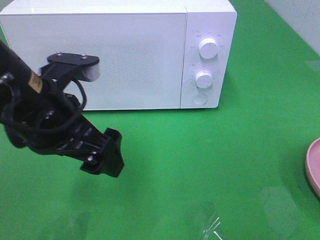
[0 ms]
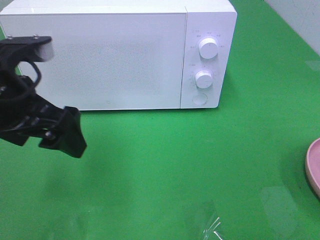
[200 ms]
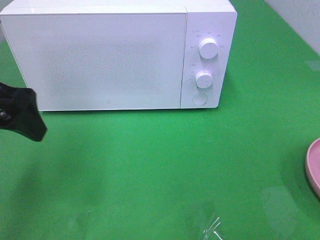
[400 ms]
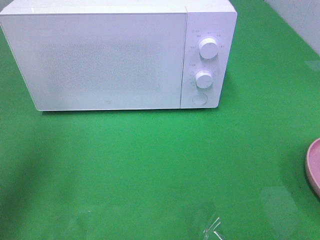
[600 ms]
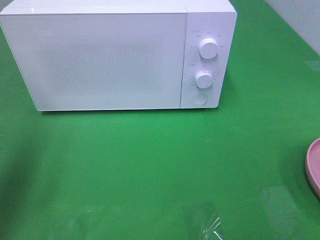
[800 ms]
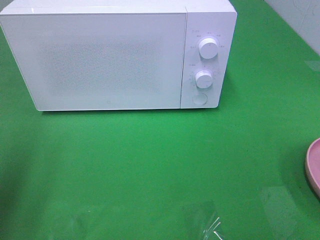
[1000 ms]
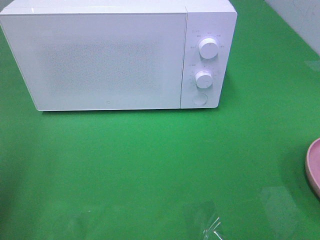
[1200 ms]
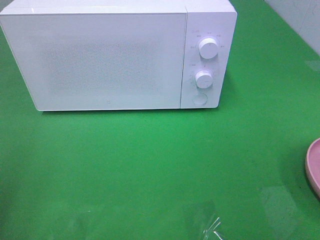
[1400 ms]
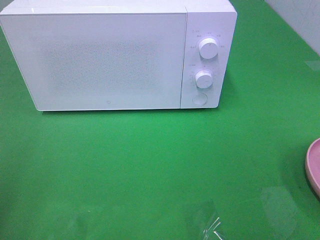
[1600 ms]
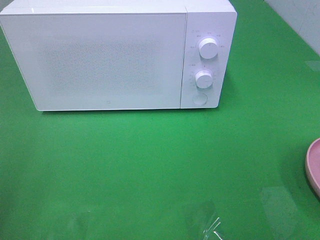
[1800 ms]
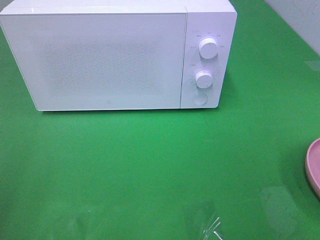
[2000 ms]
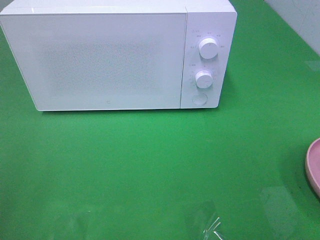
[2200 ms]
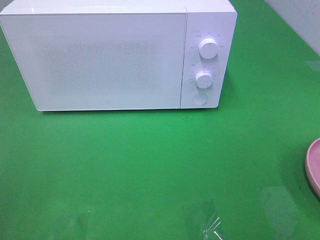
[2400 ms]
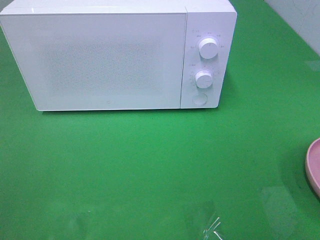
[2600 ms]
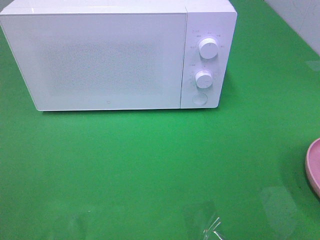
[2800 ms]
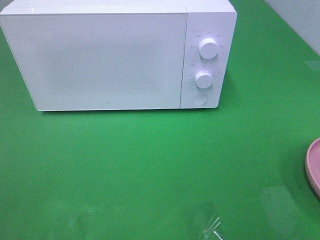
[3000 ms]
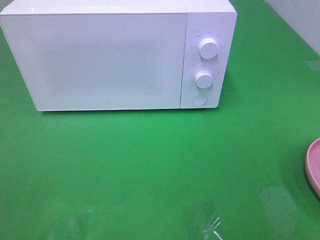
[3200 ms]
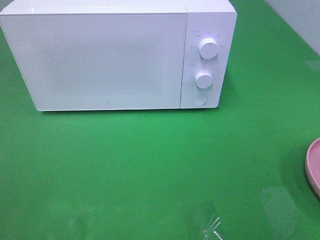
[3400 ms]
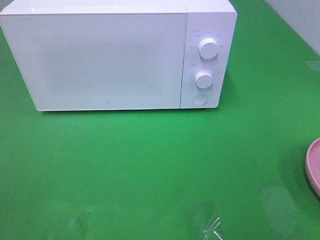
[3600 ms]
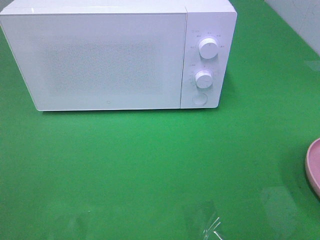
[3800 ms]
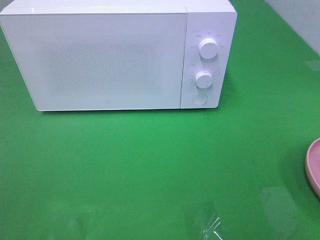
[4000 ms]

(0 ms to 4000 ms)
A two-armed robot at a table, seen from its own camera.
Task of the whole recording: Heat the burger.
0 ms - 1400 ms: The left gripper moves to the left and backward, about 20 cm.

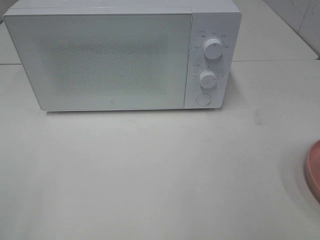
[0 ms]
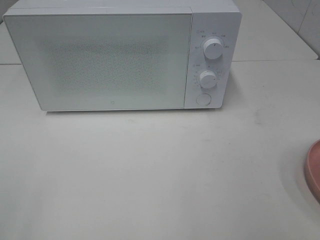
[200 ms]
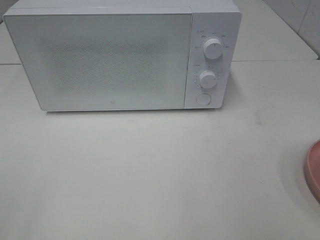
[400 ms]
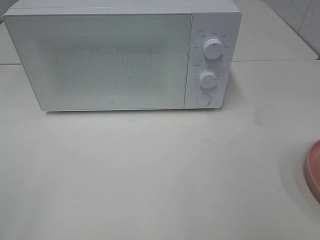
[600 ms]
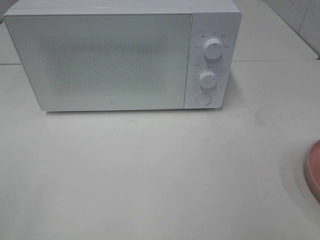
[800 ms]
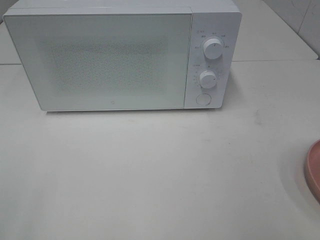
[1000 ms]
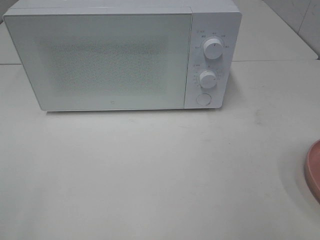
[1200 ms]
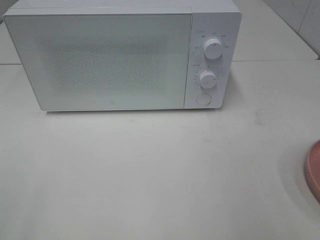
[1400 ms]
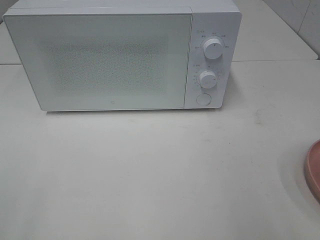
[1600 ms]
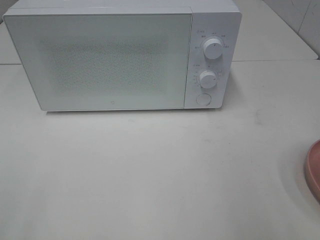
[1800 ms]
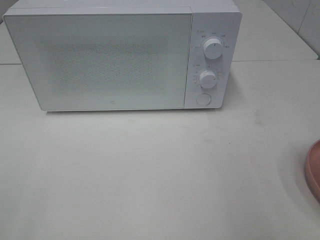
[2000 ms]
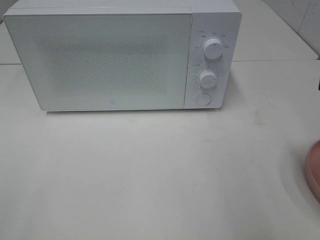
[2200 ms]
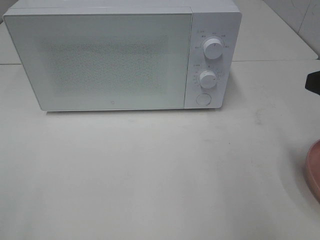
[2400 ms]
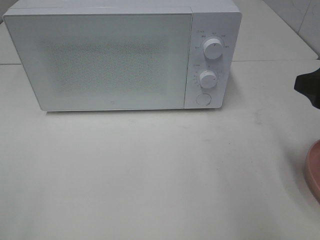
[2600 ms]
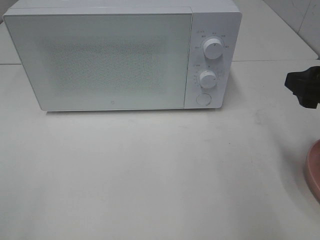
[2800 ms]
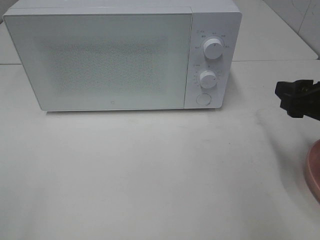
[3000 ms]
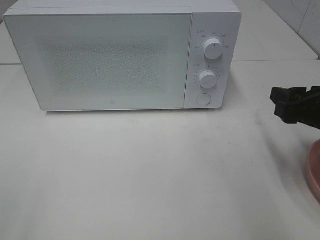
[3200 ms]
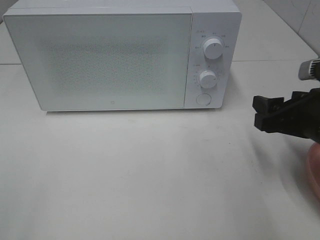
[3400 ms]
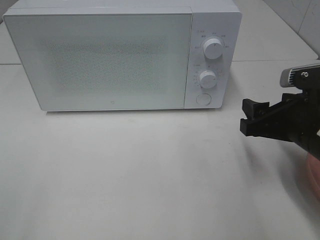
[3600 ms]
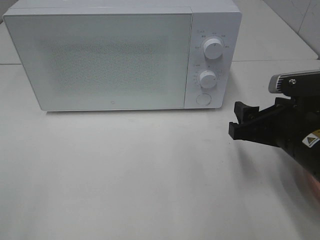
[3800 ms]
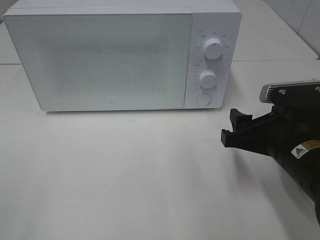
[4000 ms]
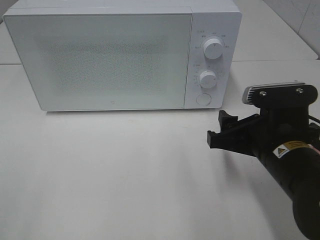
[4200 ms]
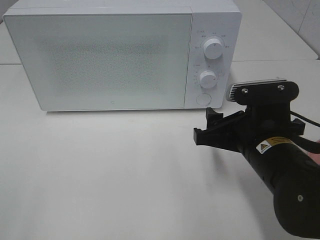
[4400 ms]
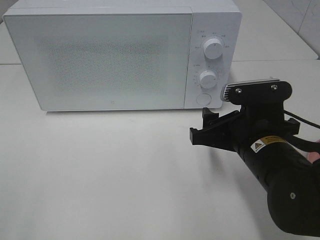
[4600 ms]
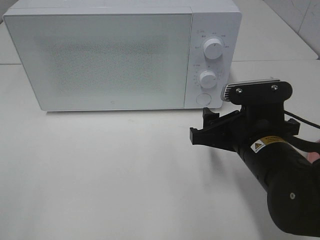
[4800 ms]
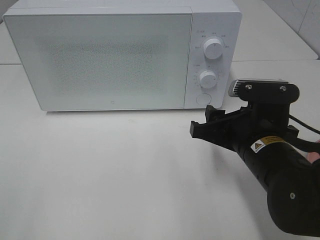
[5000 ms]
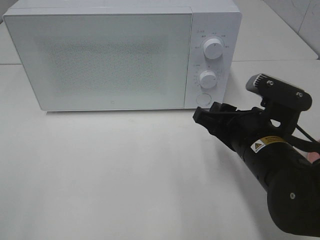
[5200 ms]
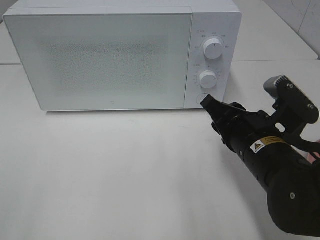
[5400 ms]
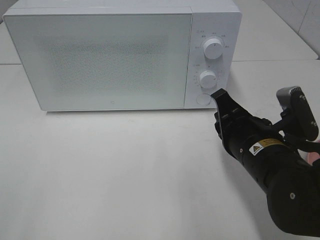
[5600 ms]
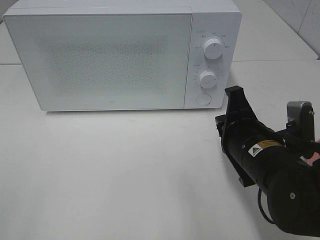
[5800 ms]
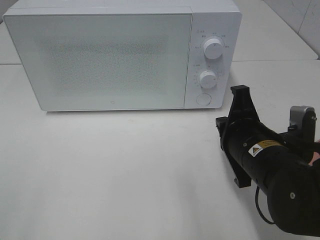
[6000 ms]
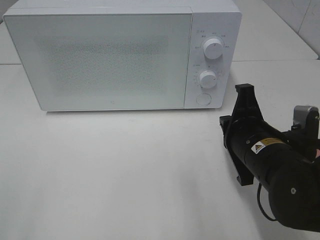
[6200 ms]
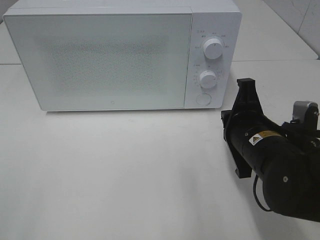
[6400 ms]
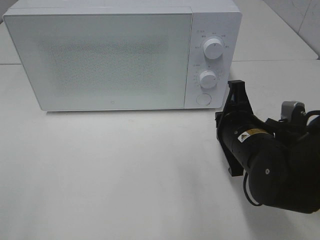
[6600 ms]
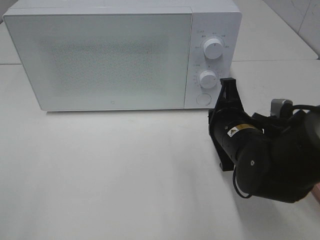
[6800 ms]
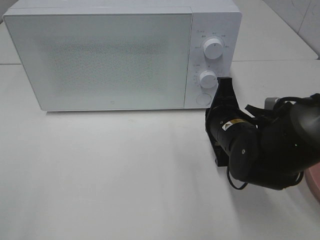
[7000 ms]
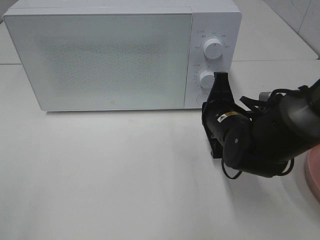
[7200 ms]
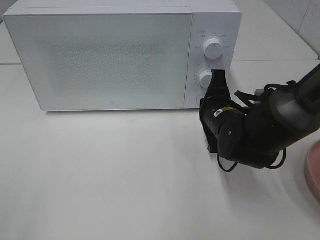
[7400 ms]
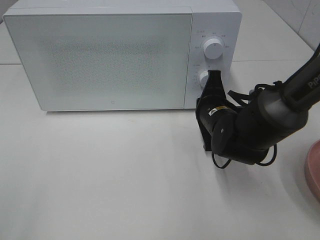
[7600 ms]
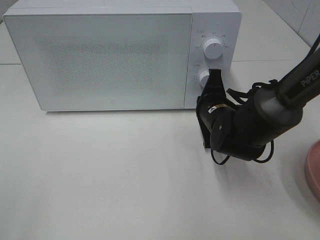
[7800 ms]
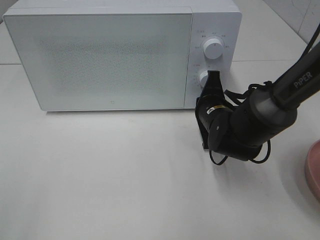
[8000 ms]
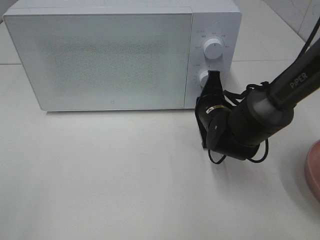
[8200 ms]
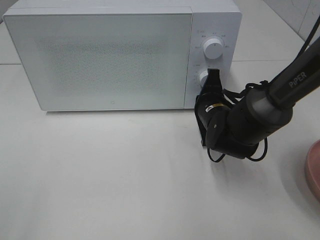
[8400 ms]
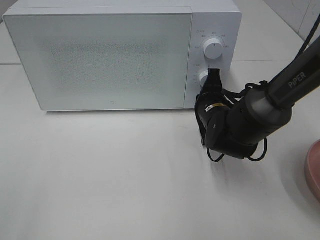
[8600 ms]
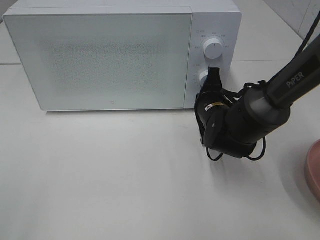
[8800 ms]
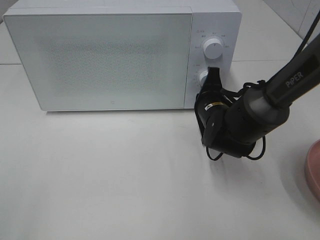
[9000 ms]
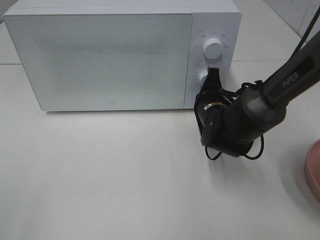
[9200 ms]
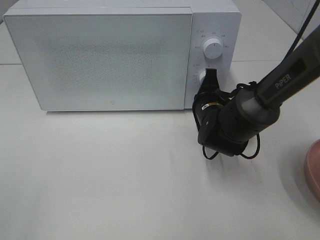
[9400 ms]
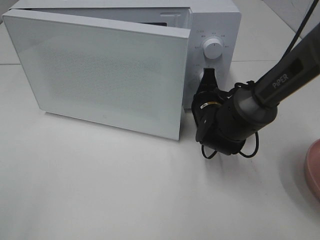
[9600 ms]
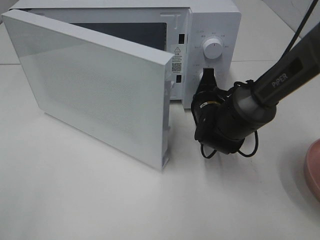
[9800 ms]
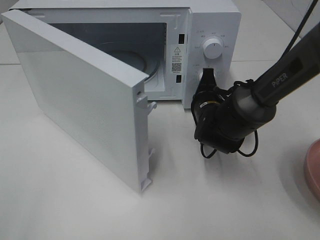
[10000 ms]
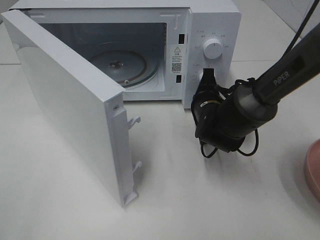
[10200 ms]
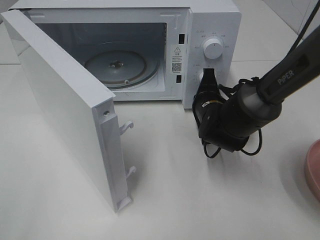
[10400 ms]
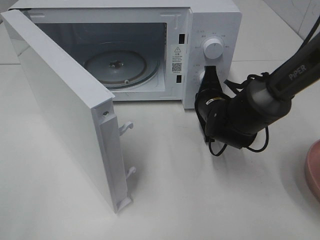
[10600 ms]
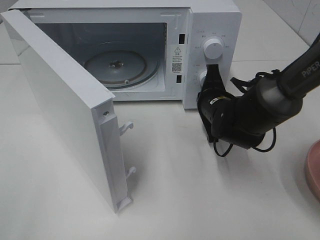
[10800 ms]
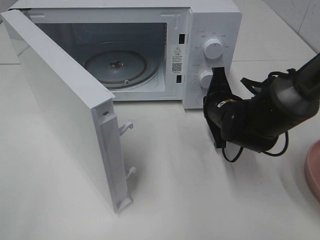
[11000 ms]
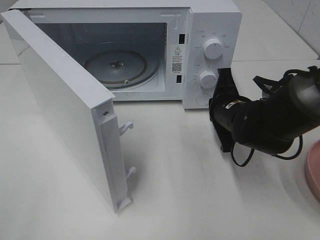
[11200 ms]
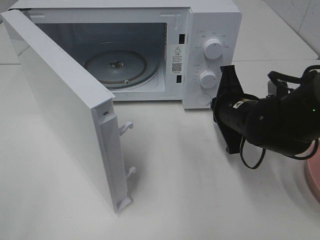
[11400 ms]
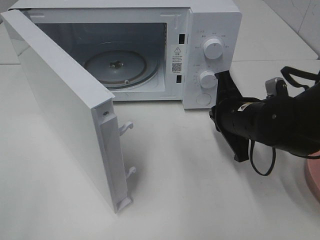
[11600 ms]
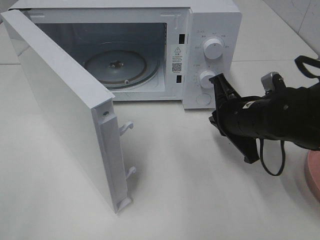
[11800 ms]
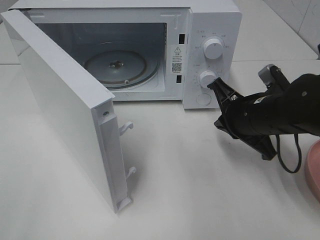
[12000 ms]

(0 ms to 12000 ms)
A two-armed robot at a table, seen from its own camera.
Task of the whole recording: Heat the burger.
Step, 0 ms - 11000 ms: Right hand: press the switch.
1600 ms - 3000 ms: The right gripper shifts about 15 cm forward and downward.
3000 ms - 4400 ms: The right gripper heads to the left and downward, covering about 15 cm.
4400 ms - 6000 ms: The right gripper closes its fingers.
6000 ms - 7600 ms: The right gripper is displaced forward by roughly 10 cm.
7600 ms - 9000 ms: The grippers stay close to where they were, moving slightly.
10400 ms - 12000 ms: The right gripper goes some 10 cm backward and upward.

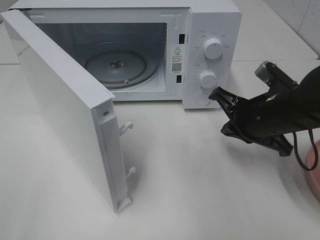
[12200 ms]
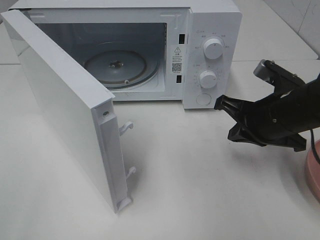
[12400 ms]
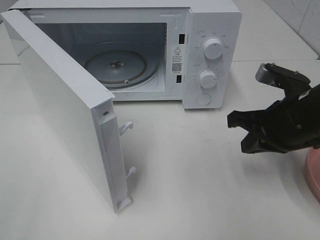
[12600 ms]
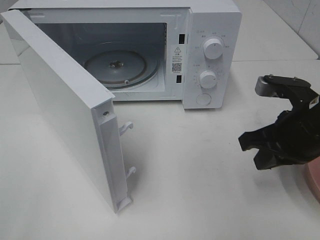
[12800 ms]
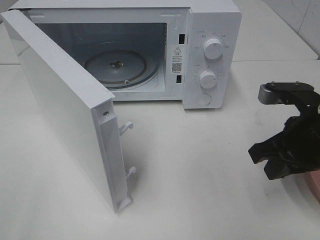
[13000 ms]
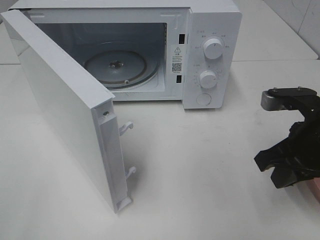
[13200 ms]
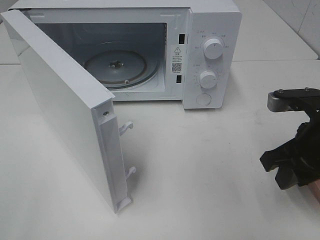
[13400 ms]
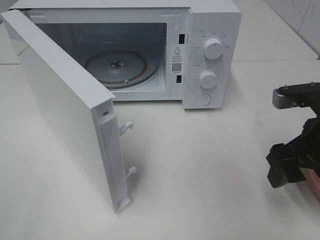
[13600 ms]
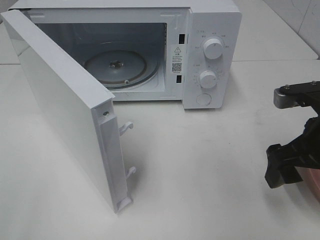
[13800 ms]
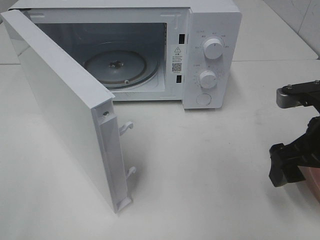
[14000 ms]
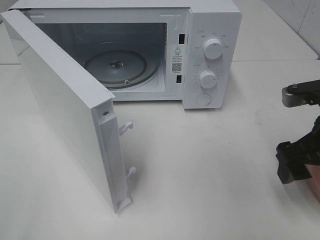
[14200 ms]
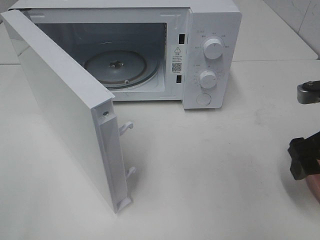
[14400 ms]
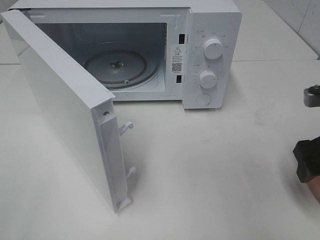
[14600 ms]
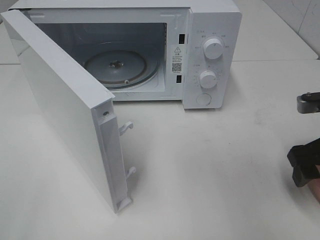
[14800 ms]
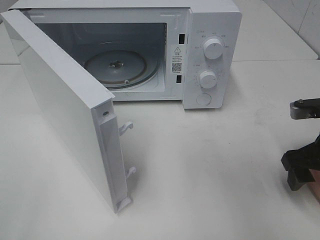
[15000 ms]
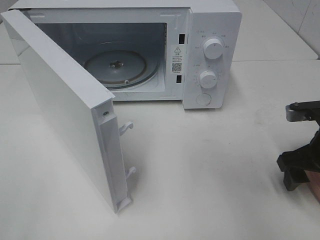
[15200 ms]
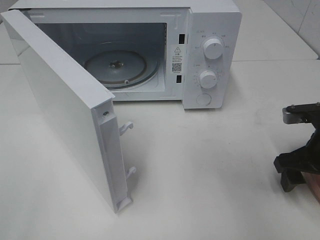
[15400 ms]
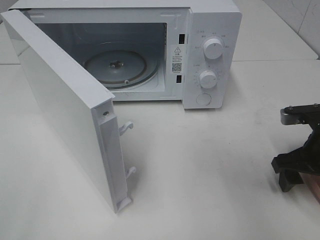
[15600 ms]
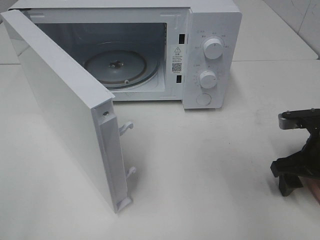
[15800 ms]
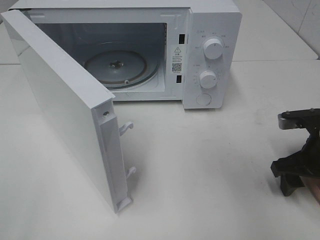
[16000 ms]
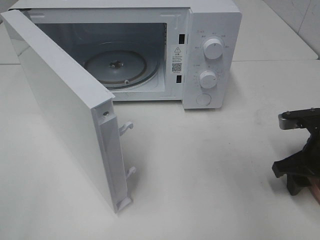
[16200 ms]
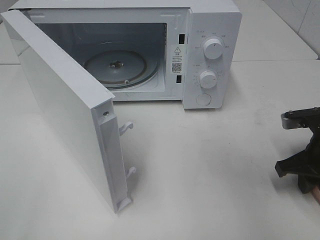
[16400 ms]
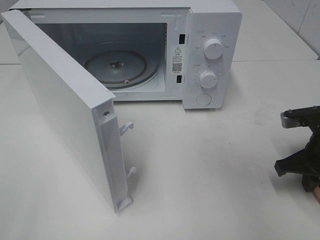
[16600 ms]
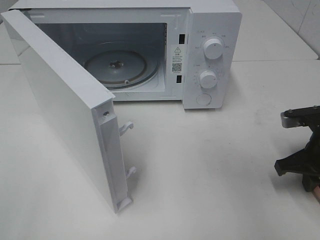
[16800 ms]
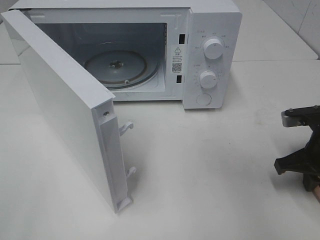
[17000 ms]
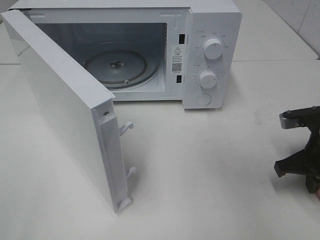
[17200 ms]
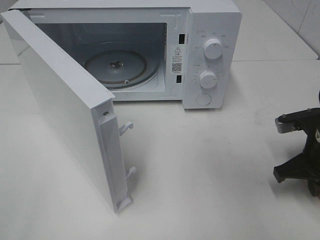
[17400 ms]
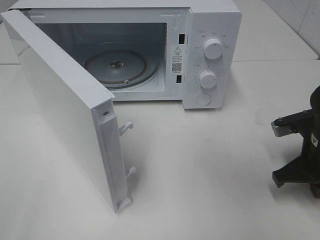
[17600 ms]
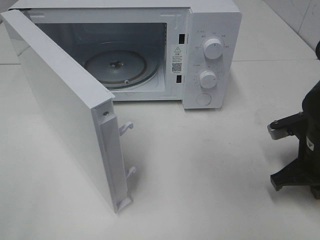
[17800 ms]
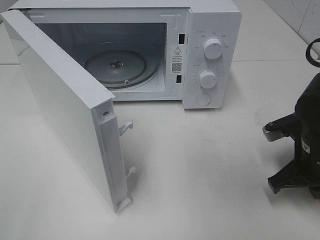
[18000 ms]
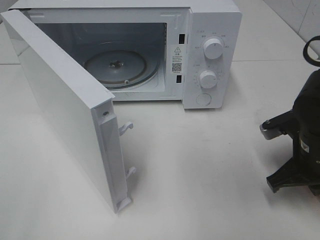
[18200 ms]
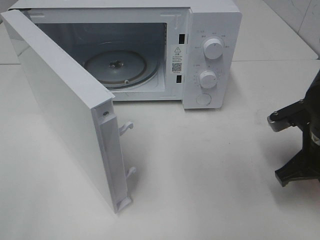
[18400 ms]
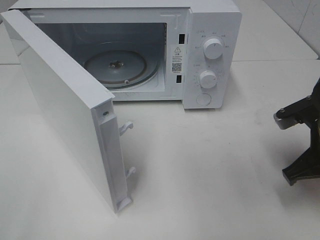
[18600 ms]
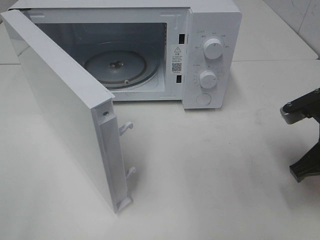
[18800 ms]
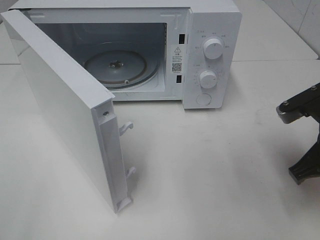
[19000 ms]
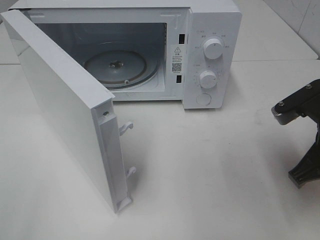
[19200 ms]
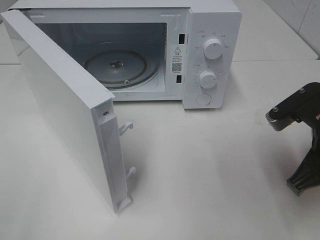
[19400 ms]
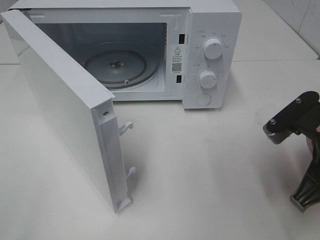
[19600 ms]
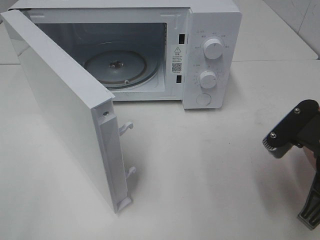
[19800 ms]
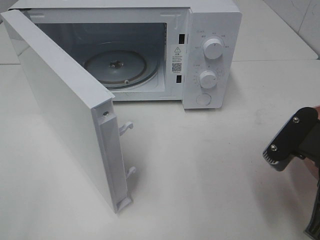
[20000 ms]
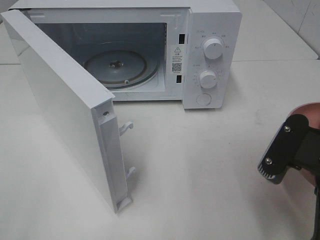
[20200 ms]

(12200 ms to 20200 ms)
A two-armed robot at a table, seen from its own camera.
Task of the whole recording: Heat the burger.
Step, 12200 ms - 17400 ms: Right hand: grab the plate with the hamburger.
12200 ms - 13800 ms: The right gripper moves backward, some 5 cm, and opens.
13800 ms - 15400 ms: The right gripper travels downward by some 5 cm.
15400 ms - 17000 ms: The right gripper closes.
17000 ms - 18600 ms: The right gripper moves approximately 5 cm.
18600 ms - 20200 ms: The right gripper shifts approximately 10 cm backward.
